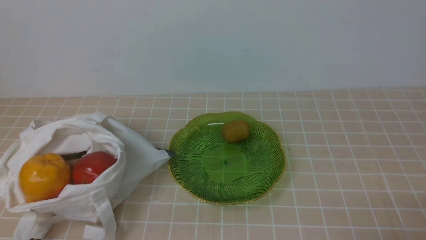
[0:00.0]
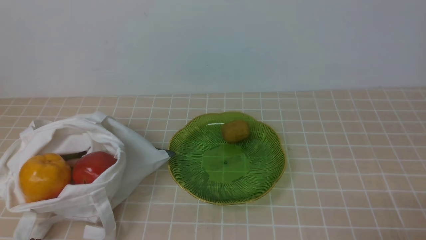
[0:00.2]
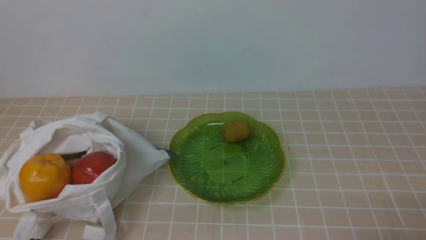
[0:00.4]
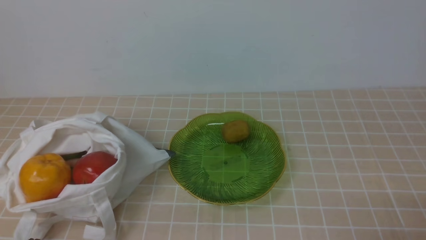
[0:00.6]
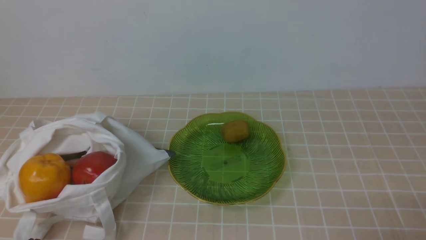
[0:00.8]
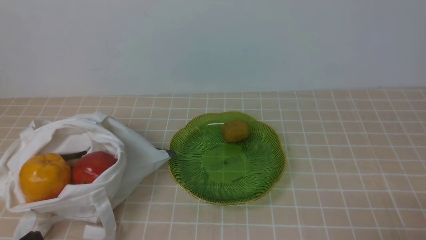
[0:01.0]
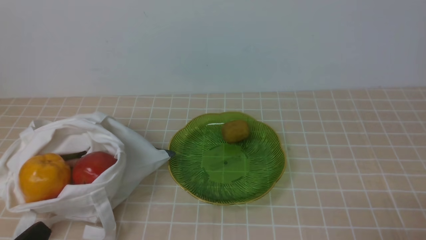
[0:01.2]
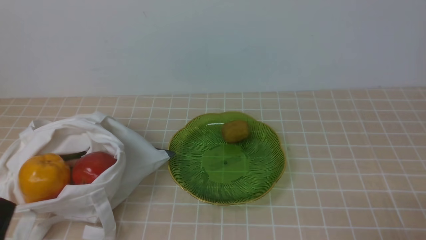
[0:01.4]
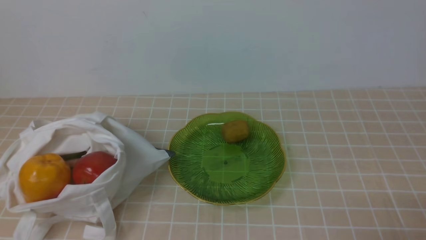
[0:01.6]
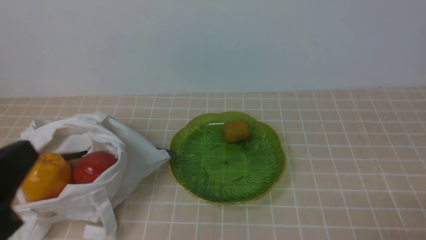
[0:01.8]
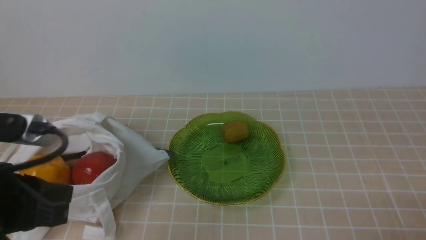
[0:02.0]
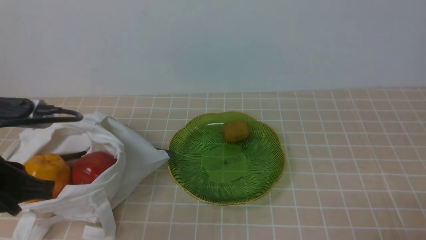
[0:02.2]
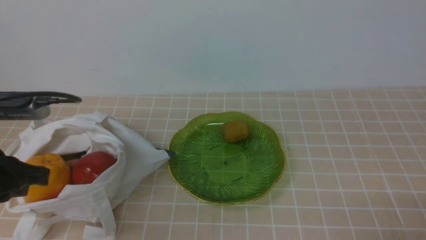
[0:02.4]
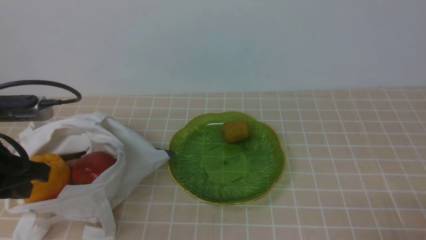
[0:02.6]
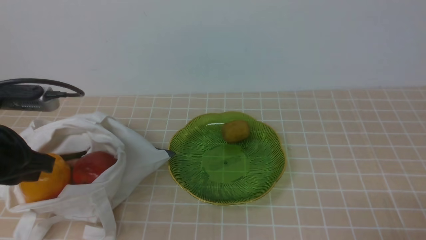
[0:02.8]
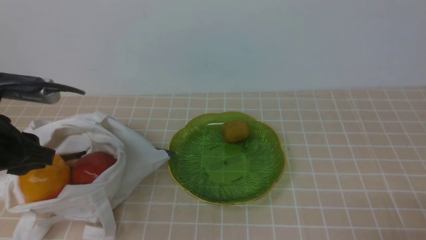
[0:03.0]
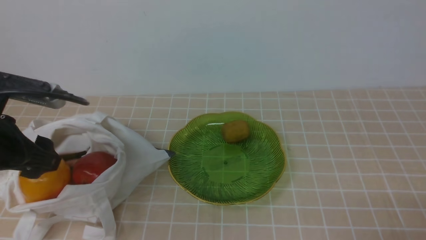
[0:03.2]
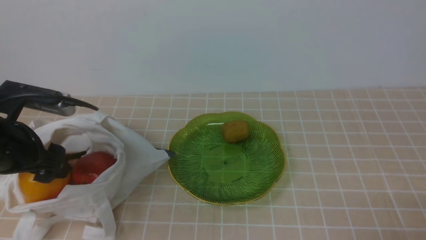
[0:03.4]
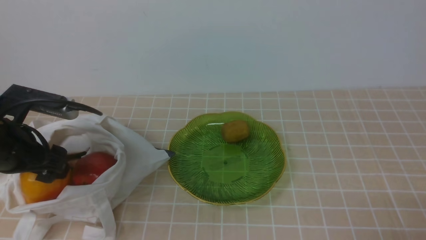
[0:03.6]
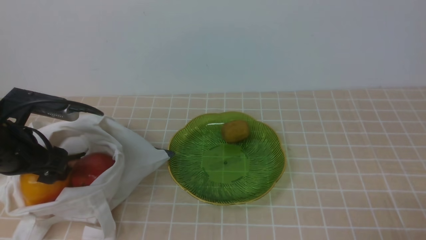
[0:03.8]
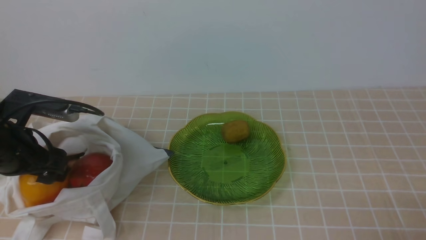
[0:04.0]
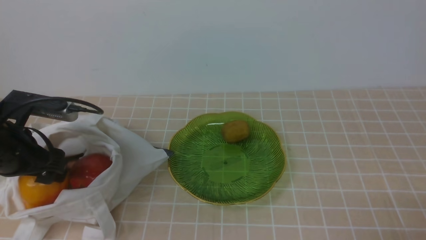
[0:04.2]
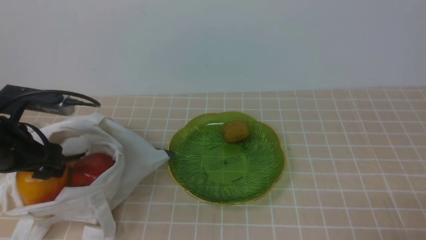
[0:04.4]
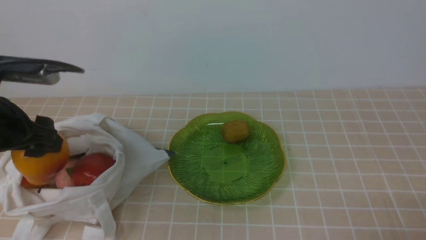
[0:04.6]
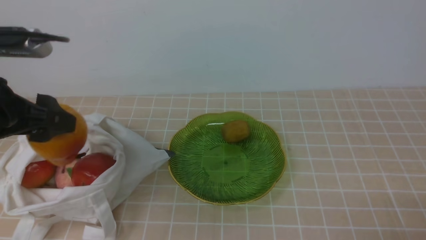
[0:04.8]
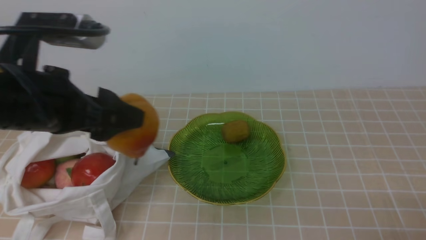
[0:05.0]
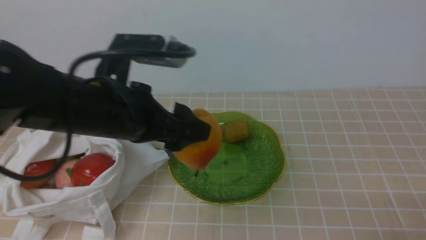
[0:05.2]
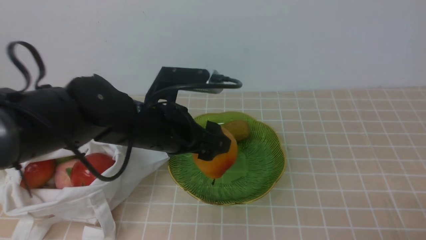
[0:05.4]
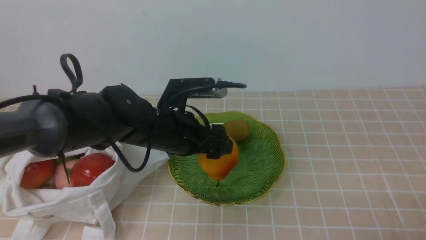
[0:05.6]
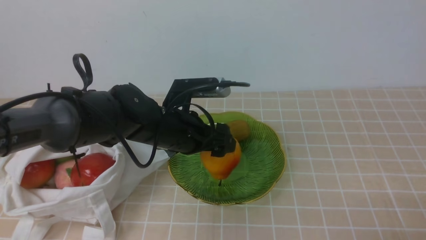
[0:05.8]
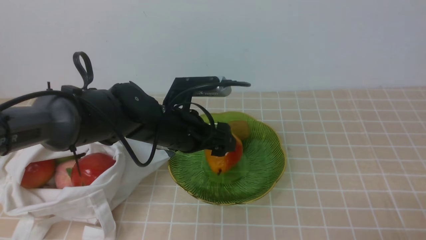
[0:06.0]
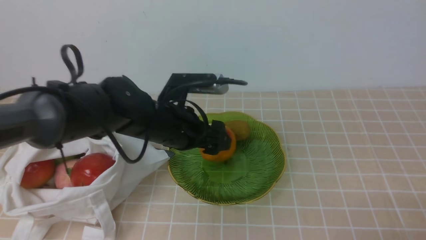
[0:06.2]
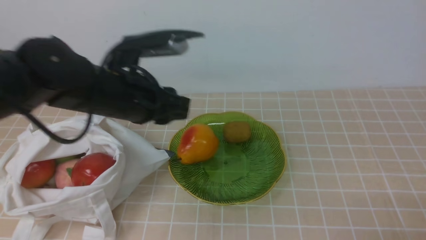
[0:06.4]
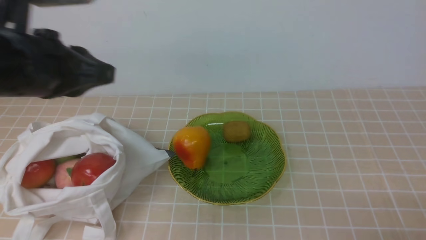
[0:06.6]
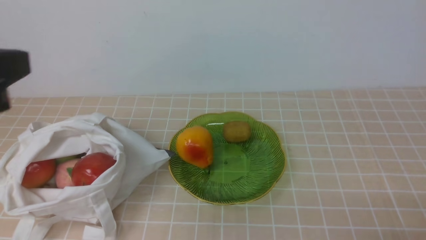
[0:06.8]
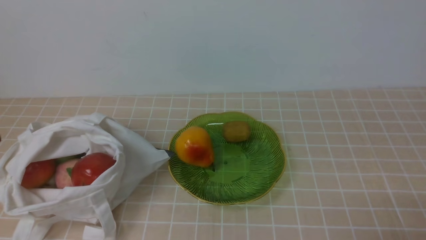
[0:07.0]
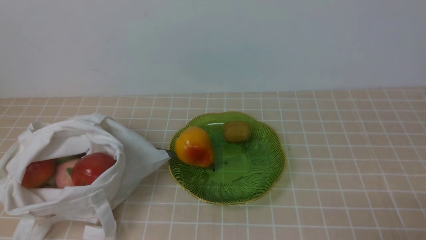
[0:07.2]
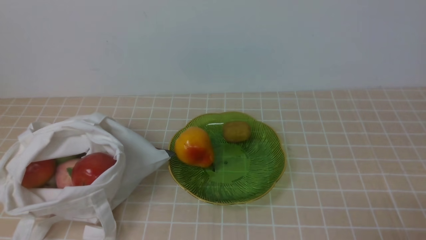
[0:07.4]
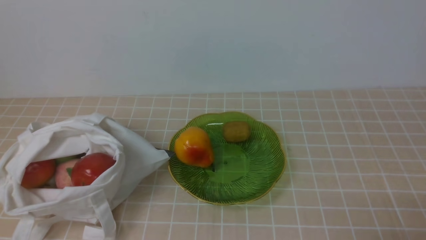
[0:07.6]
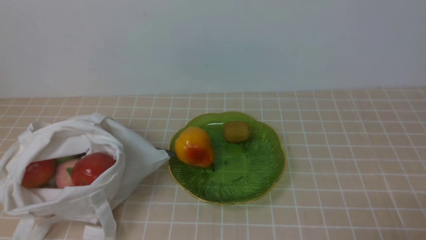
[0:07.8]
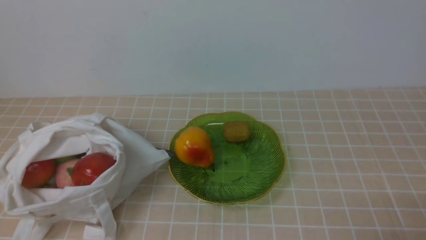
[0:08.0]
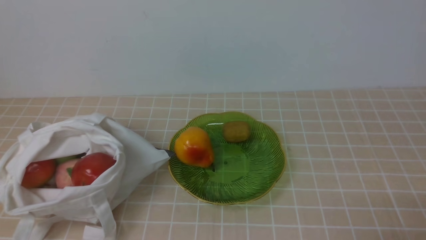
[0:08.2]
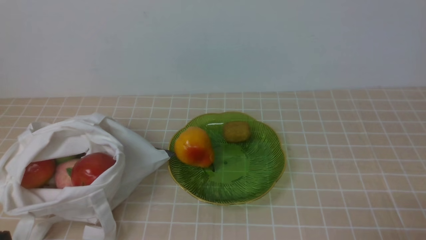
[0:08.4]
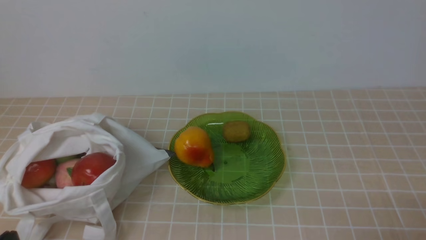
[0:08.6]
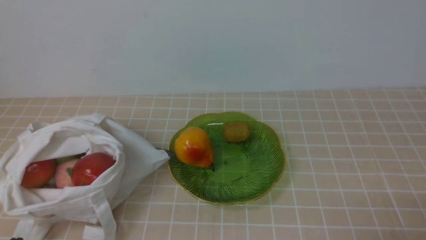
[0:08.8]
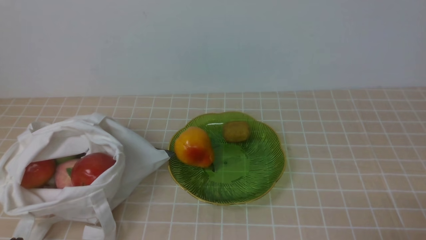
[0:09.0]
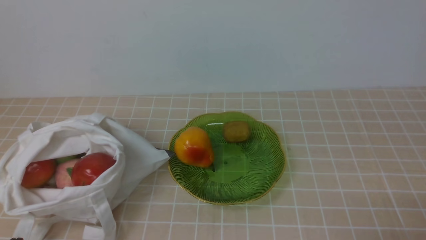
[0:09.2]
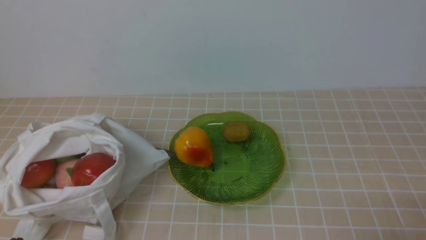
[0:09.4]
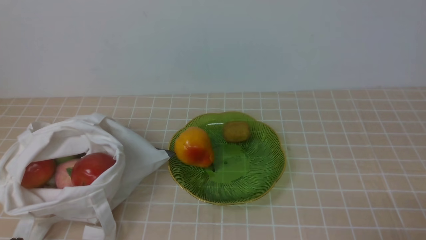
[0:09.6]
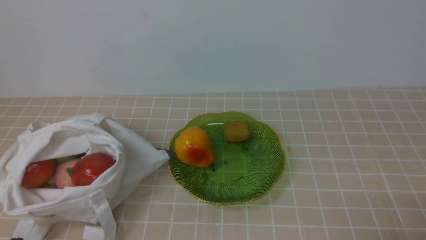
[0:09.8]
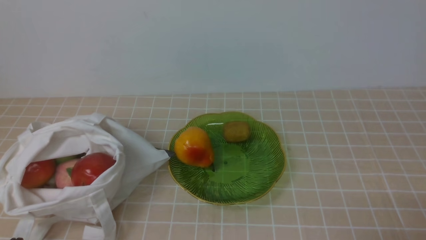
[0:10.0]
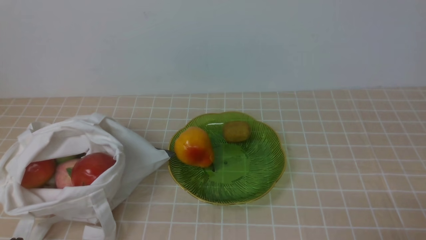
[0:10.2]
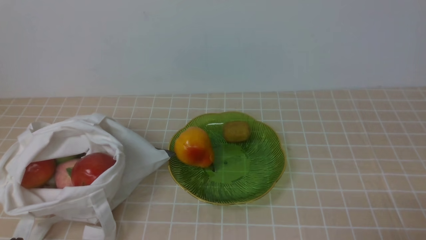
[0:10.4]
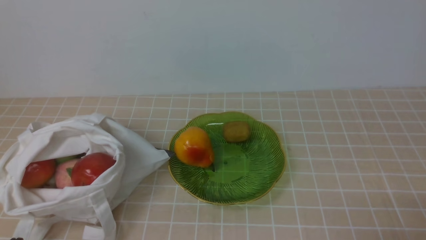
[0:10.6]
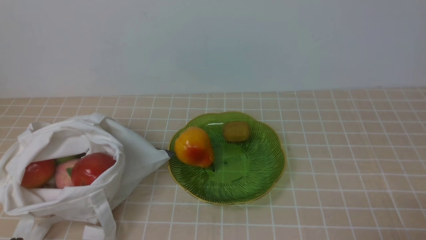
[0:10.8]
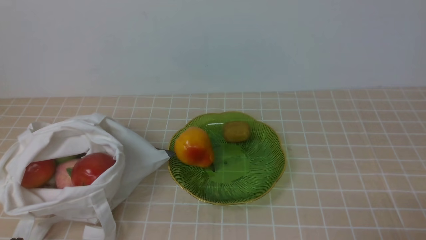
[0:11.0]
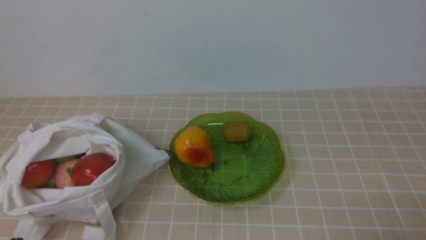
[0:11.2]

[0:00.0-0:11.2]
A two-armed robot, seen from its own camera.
Step, 0:00.0 to 0:04.4: use the left arm to grab a pear from the bag.
Step, 0:04.6 to 0:05.8: use the left arm to put the pear into the empty plate on the right.
0:01.6 to 0:03.2: The left gripper travels forward by about 20 cm, and opens.
0:03.2 to 0:04.8: The left gripper moves upward, about 5 cm.
0:04.8 to 0:06.4: The left gripper is displaced to the right and forward by some 10 cm, and closes its fingers.
0:06.4 to 0:08.0: The left gripper travels backward and to the left by about 30 cm, and closes up.
0:09.6 to 0:11.2: Both grippers stay put.

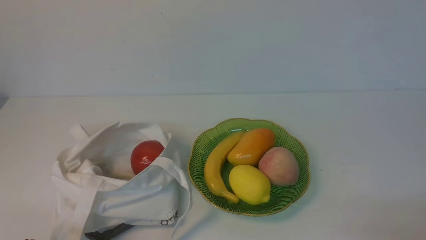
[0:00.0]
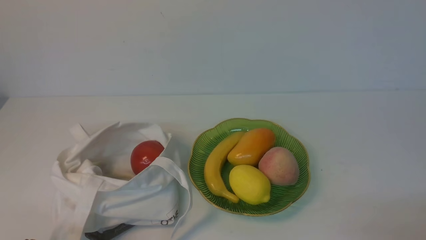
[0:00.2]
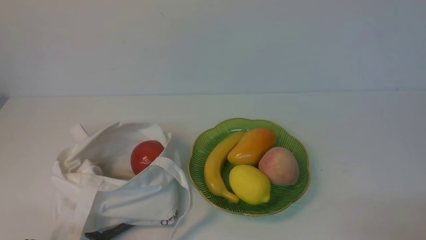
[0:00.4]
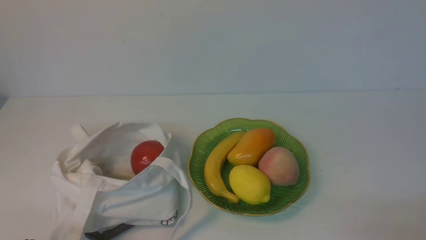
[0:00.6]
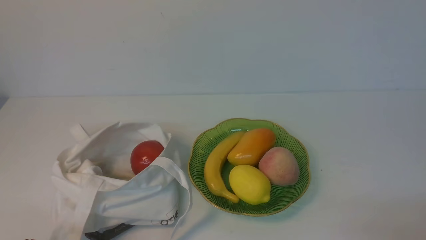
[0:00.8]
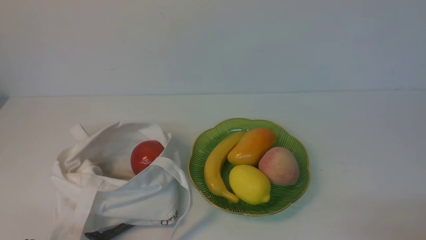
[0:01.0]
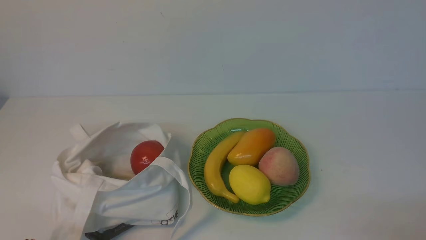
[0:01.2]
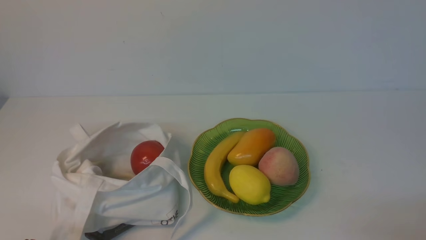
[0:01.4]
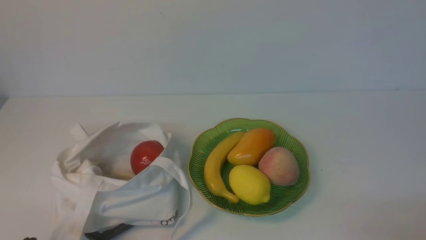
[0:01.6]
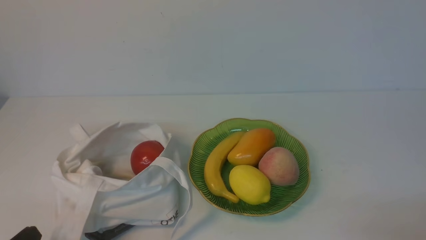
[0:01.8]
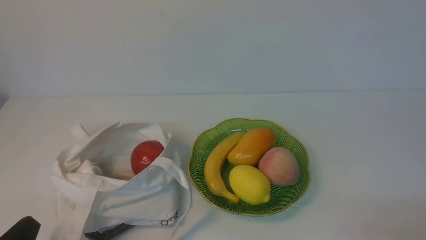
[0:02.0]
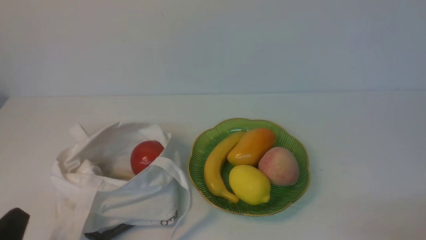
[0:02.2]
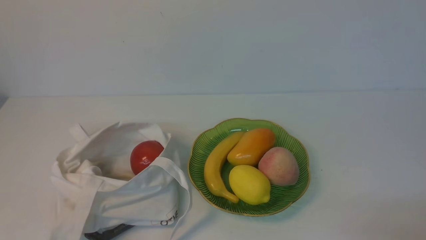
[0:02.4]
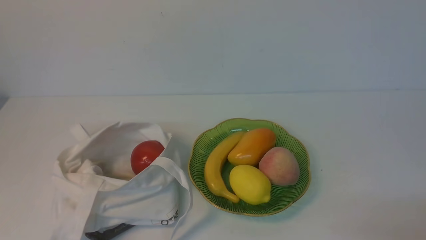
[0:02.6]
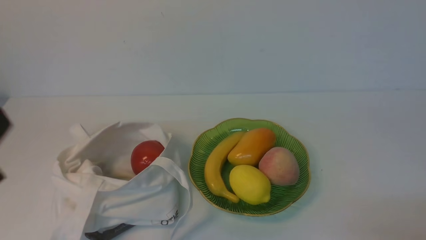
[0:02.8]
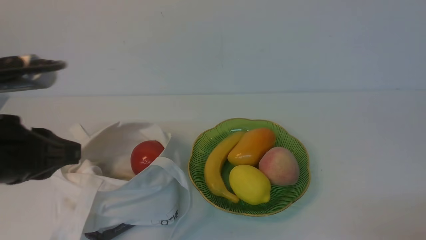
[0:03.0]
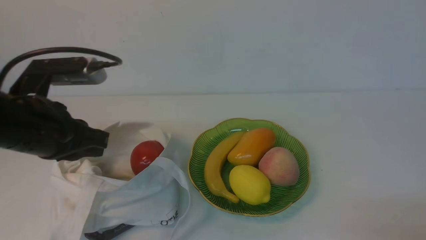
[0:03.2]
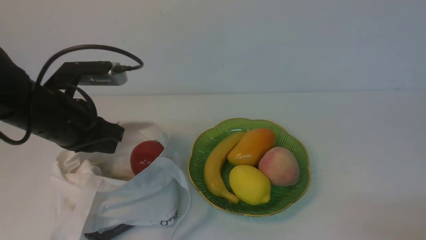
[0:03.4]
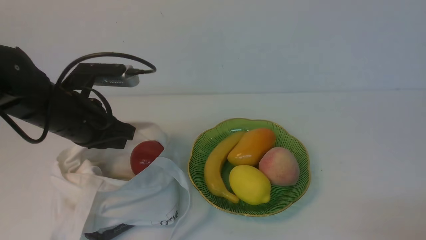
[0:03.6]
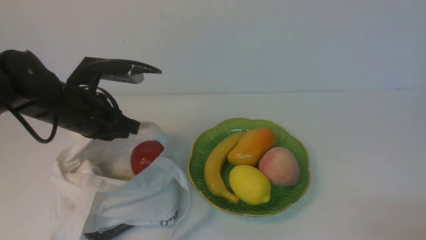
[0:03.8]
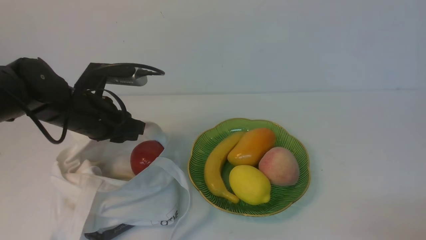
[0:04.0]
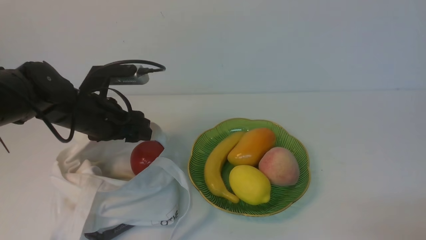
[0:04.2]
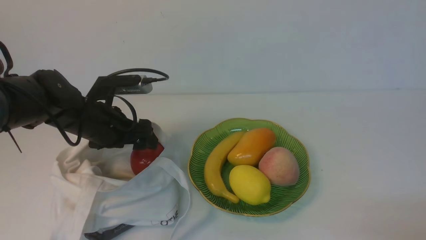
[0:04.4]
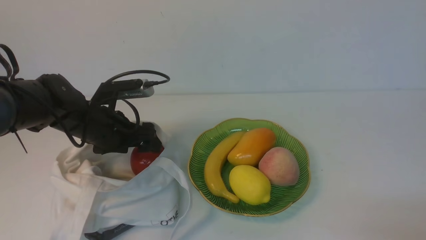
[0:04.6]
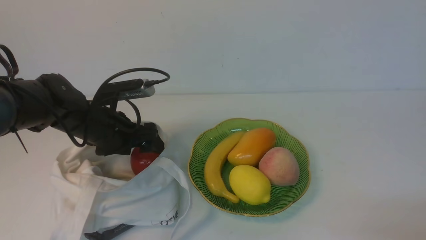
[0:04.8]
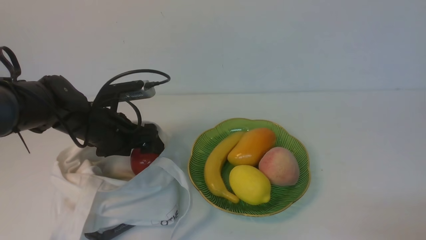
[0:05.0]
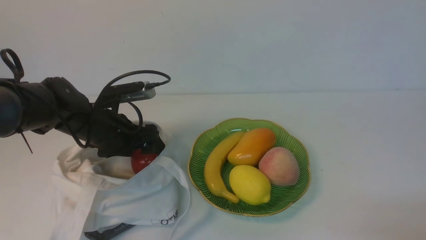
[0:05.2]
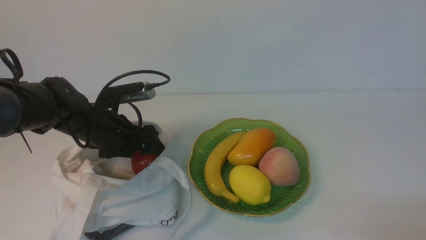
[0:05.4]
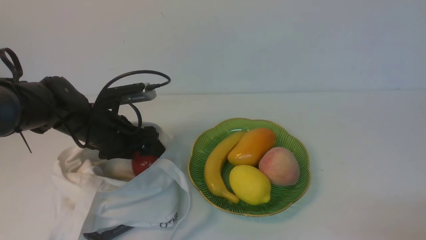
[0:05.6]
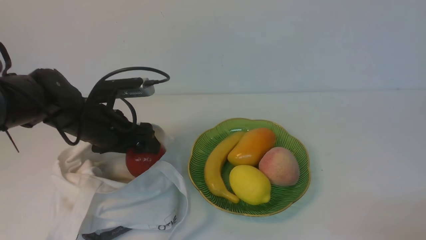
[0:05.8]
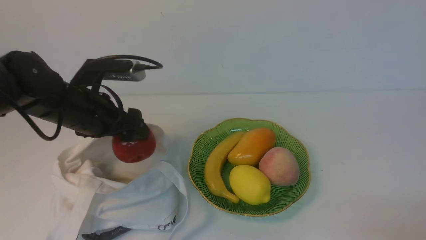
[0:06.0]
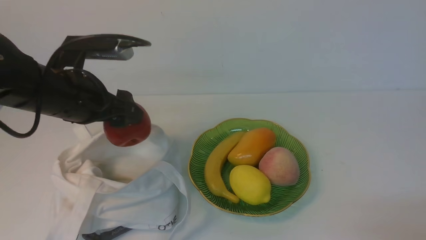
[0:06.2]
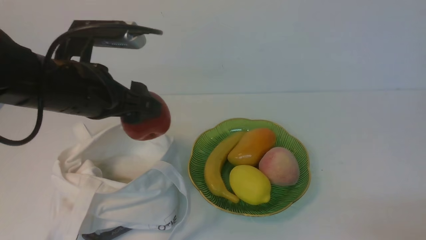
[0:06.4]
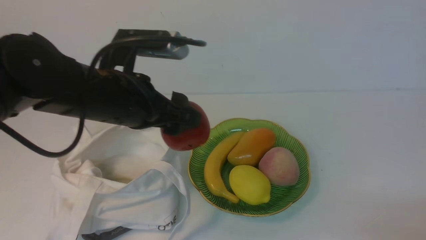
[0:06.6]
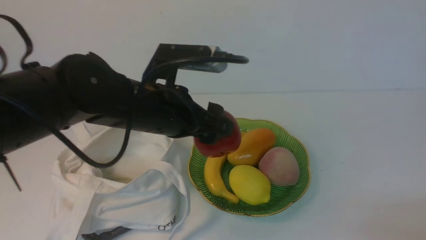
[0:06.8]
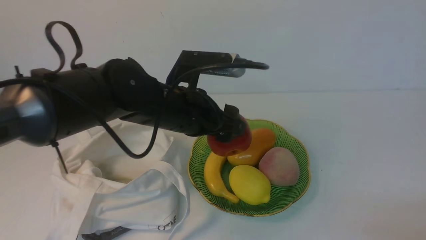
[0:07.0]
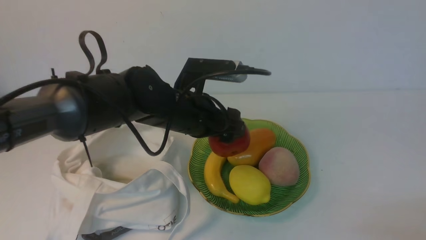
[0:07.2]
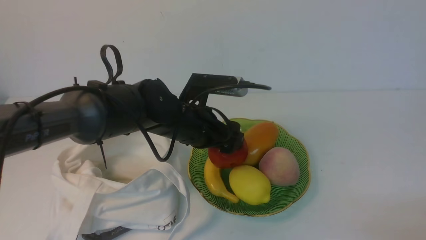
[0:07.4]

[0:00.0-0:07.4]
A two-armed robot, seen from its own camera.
Step, 0:00.0 to 0:05.8: use the left arm to grab an apple from the bag.
0:00.0 to 0:01.4: Both grippers stay put.
0:01.4 to 0:03.0: The left gripper is displaced upward and forward by about 20 cm.
0:03.0 to 0:04.4: The left gripper travels forward and downward by about 20 cm, and opens up.
0:04.4 to 0:06.0: The left gripper heads upward, covering roughly 5 cm.
0:06.0 to 0:07.4: The left gripper goes roughly 15 cm to the right.
